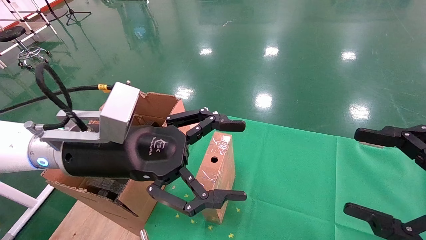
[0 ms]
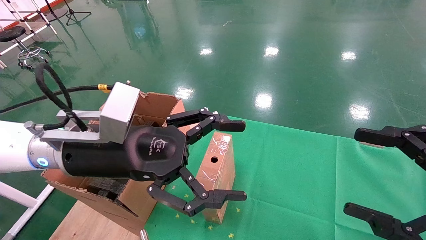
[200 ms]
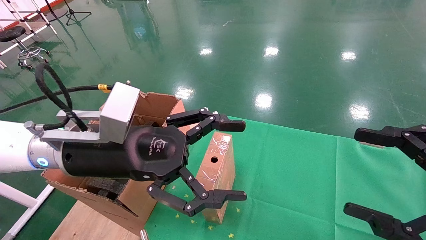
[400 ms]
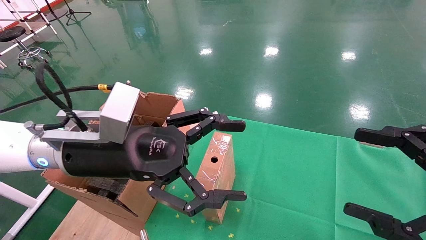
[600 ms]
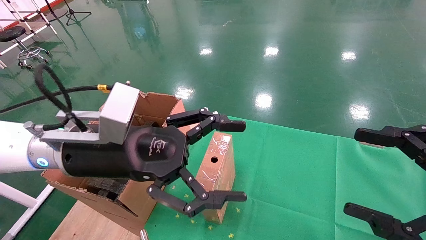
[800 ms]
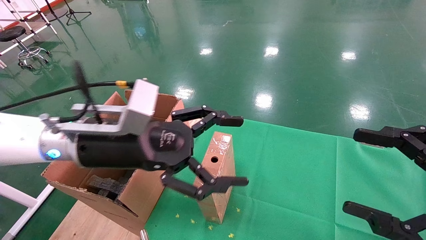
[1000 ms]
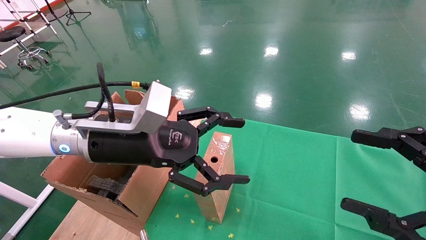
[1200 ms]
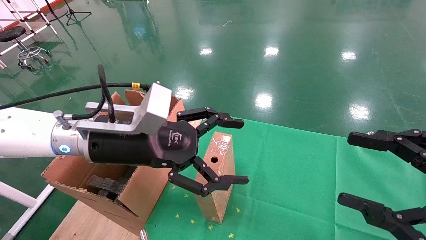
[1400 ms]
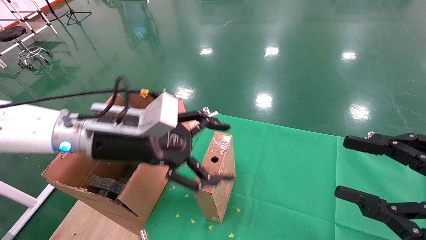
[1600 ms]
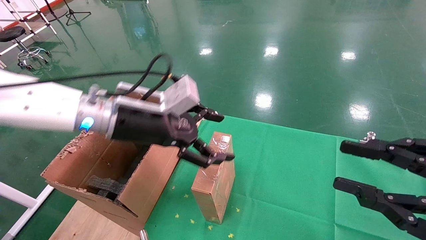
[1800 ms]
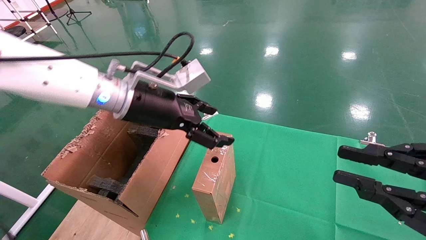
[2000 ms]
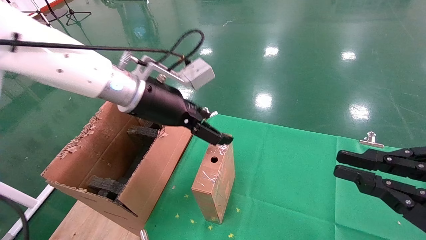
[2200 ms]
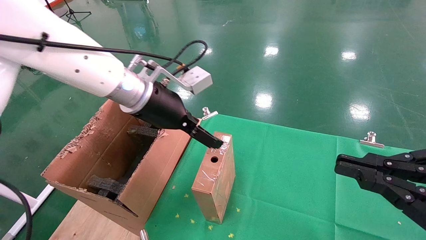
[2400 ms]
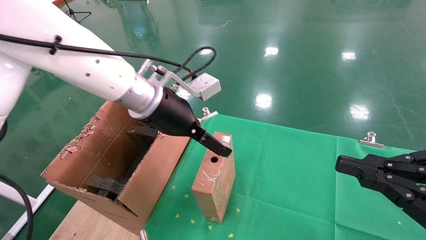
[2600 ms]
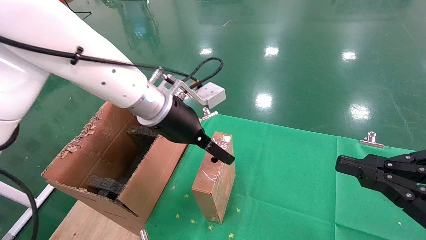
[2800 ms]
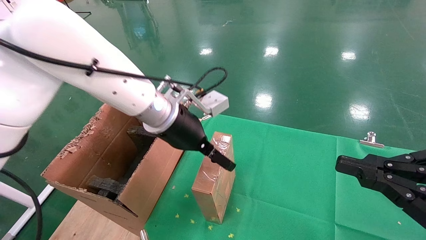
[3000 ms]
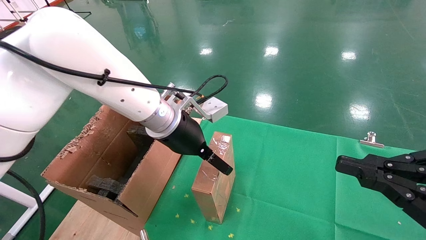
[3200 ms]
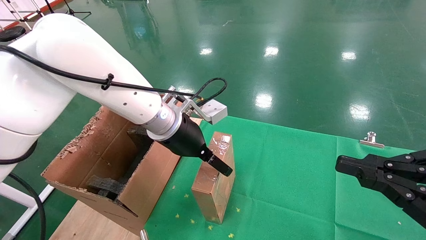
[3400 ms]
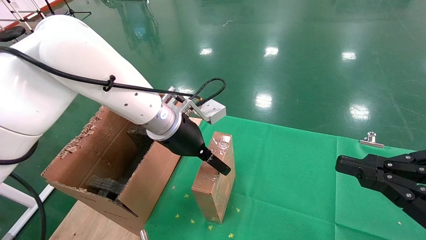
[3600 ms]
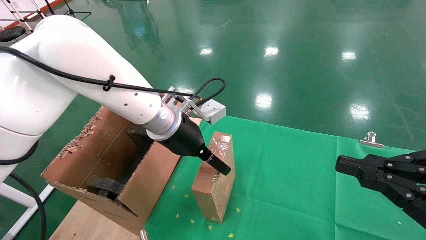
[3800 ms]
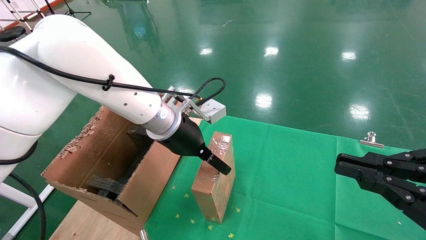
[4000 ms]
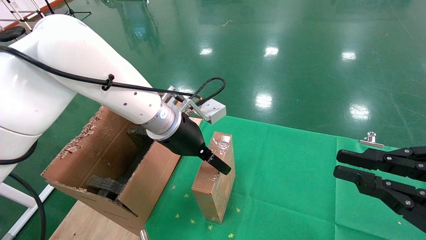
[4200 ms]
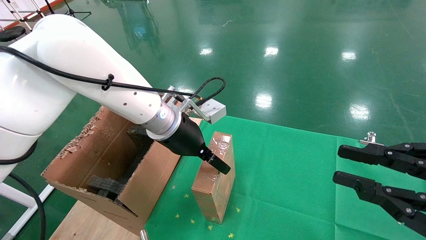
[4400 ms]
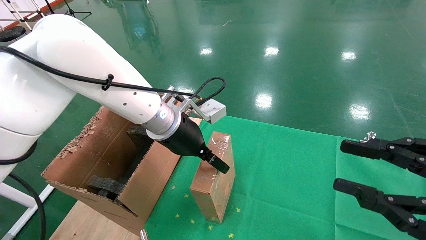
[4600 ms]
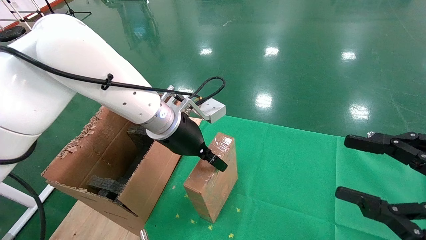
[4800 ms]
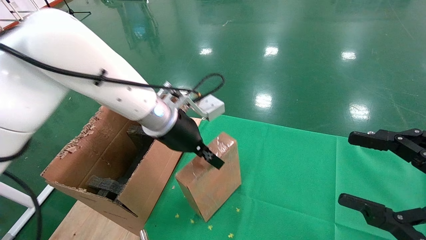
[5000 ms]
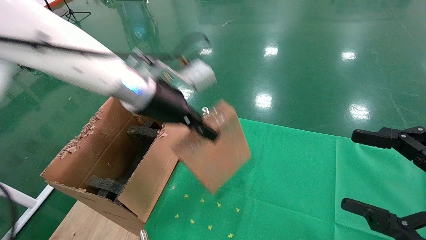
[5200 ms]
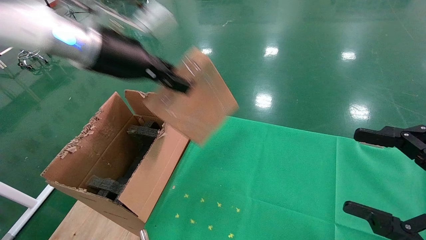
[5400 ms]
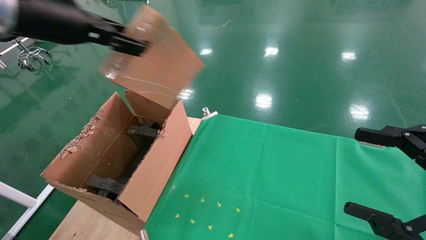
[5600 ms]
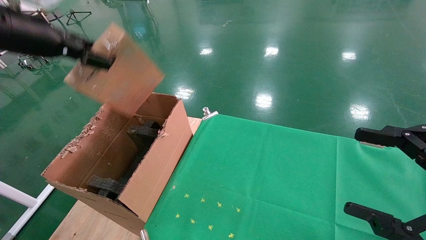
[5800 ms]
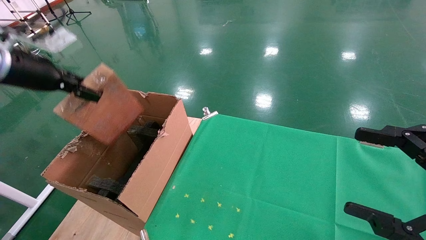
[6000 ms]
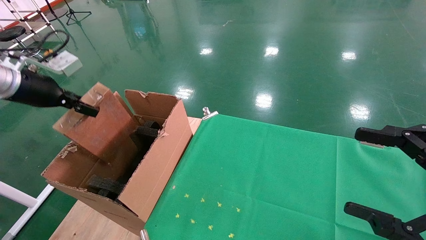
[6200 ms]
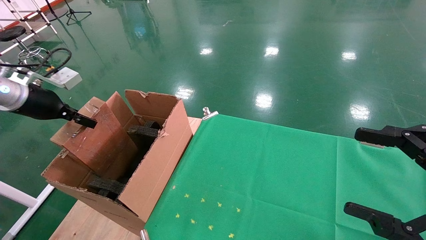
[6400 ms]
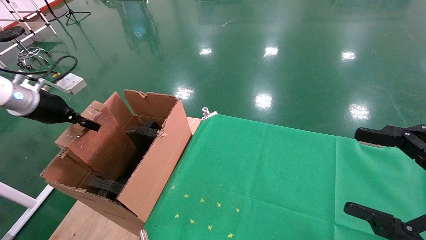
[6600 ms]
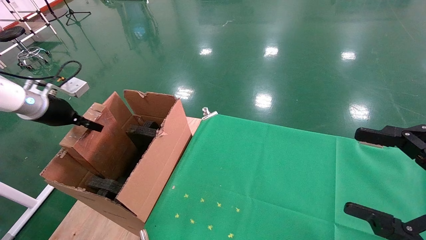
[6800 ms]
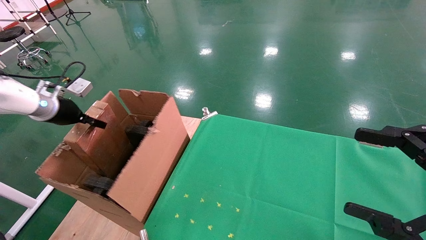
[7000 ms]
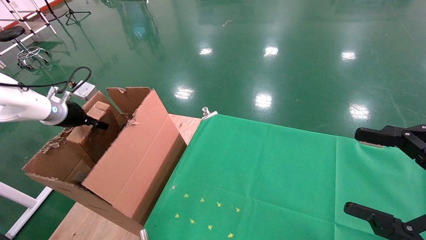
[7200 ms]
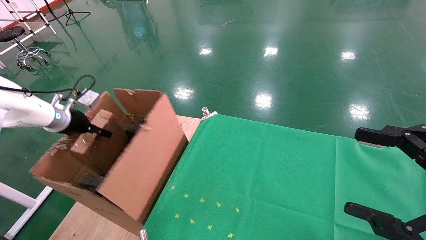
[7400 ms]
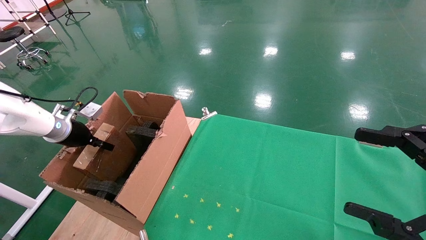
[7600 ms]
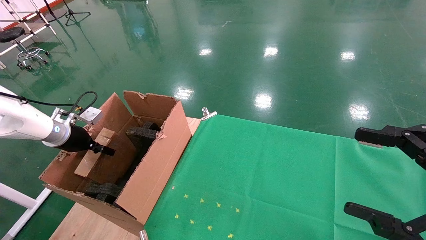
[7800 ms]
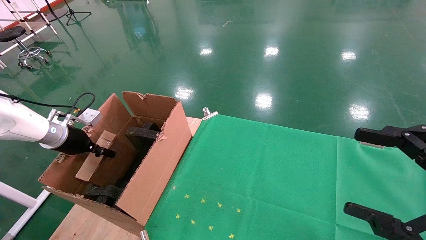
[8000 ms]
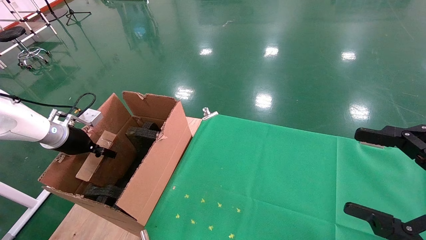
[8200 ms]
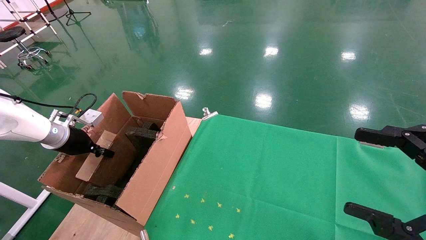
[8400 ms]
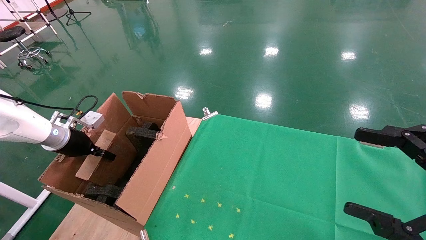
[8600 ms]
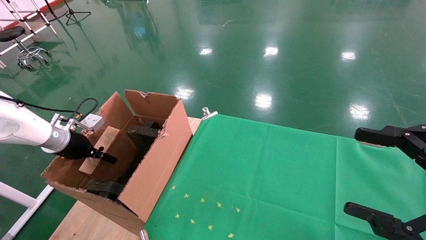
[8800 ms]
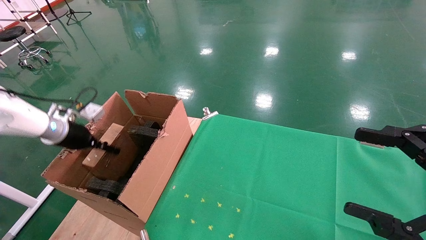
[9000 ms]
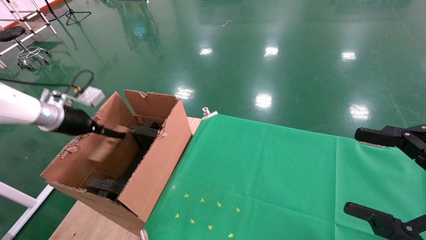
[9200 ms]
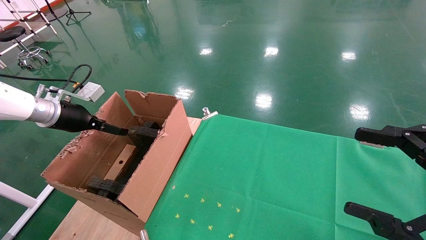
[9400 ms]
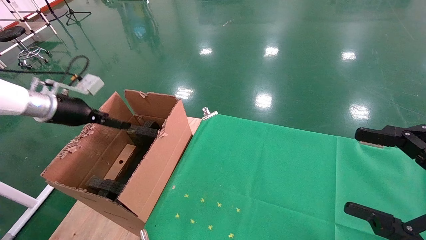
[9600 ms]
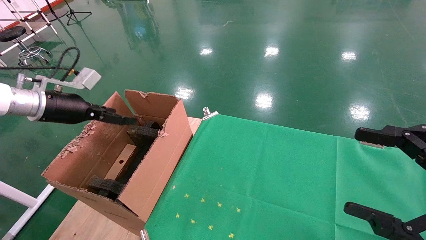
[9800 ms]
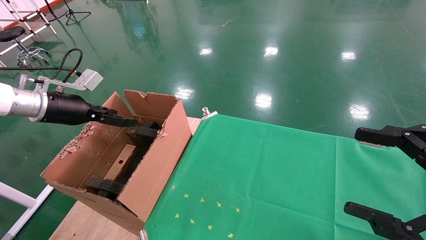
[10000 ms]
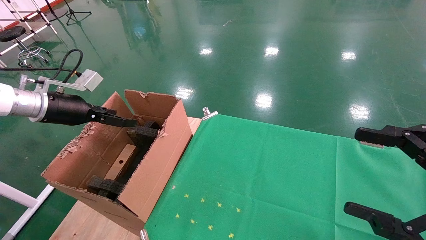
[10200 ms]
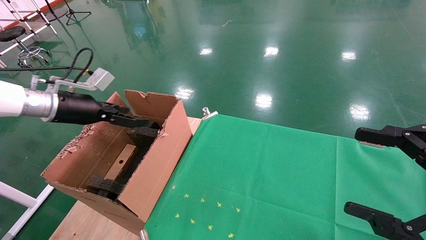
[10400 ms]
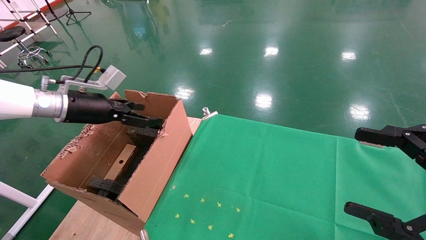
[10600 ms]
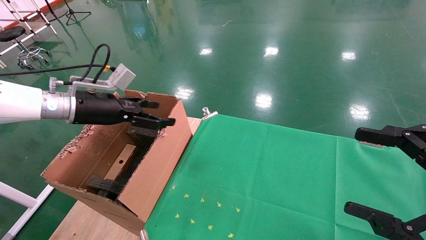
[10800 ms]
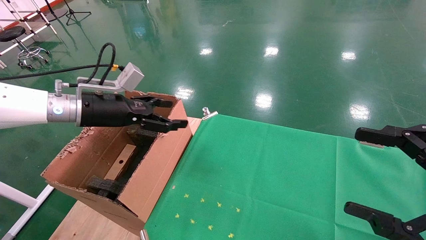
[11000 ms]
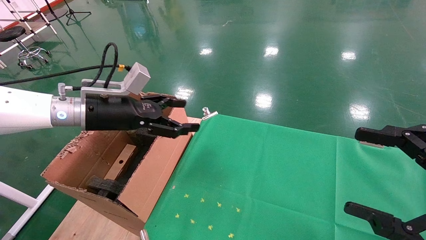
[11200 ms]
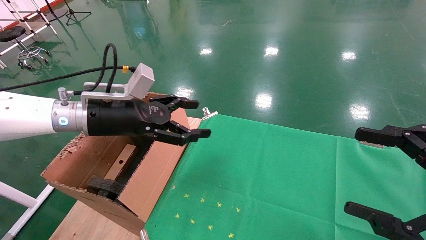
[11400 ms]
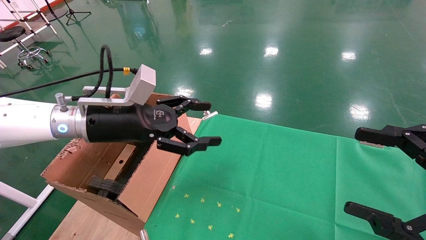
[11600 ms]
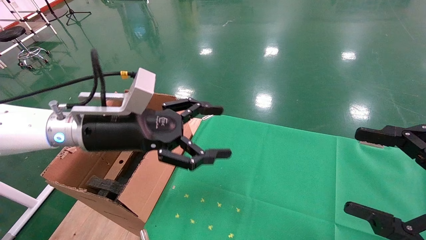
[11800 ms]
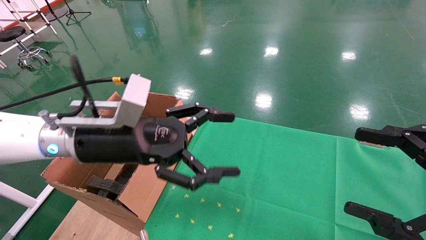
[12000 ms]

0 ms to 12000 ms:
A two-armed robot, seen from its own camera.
Task of the whole recording: using a robotic arm to pick up a cardboard box and palace it the carton.
Step, 1200 ms to 5000 ms: Pick up the mouse and the power cord paper box.
Step, 5200 ms to 8800 ms: Place the mouse and the power cord paper box into the container.
0 ms to 1600 ms: The left gripper heads forward, covering approximately 5 cm.
1600 ms to 3000 ms: The left gripper travels to the right and forward by roughly 10 cm; the right gripper closes.
3000 ms to 4400 ms: The grippers stay close to where they were, moving slightly.
4400 ms to 6000 ms: The left gripper heads to the left, covering some 30 cm, and closes. Meanwhile the right gripper opens up.
6000 ms to 7600 ms: The left gripper moves downward and forward, roughly 20 cm.
7600 ms to 9000 ms: The left gripper opens.
9000 ms to 10400 ms: The left gripper heads upward and to the right, covering approximately 10 cm, and opens.
10400 ms to 12000 ms: The left gripper goes approximately 20 cm to the right and backward.

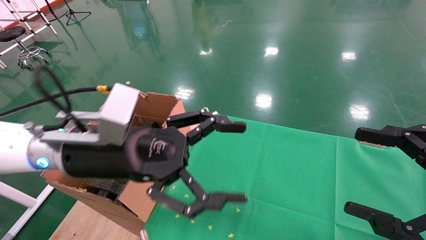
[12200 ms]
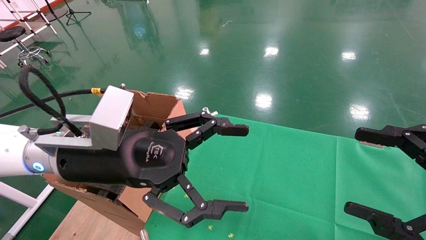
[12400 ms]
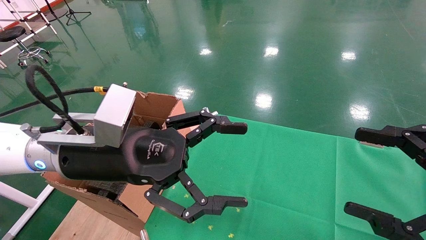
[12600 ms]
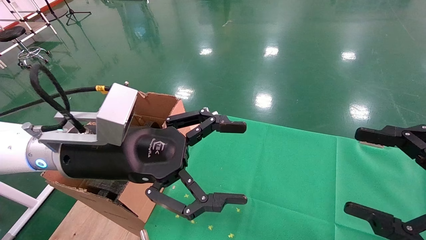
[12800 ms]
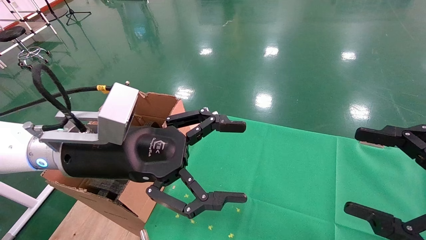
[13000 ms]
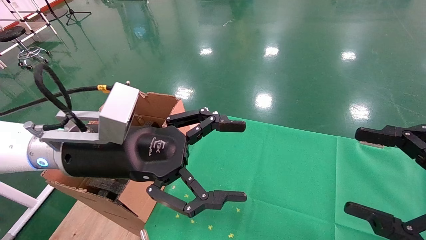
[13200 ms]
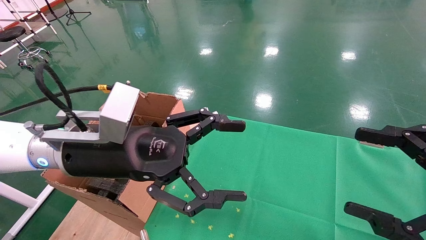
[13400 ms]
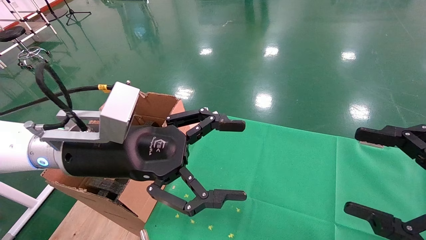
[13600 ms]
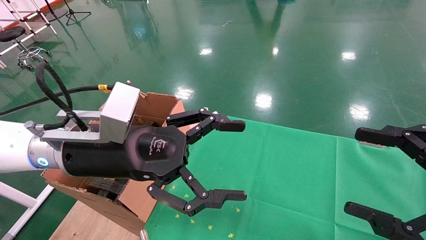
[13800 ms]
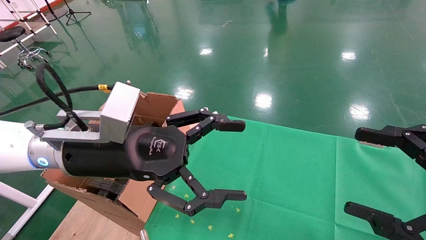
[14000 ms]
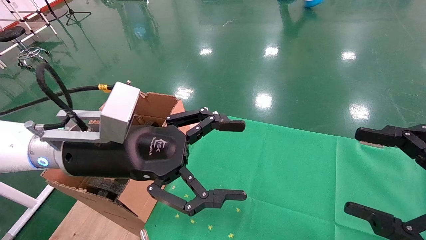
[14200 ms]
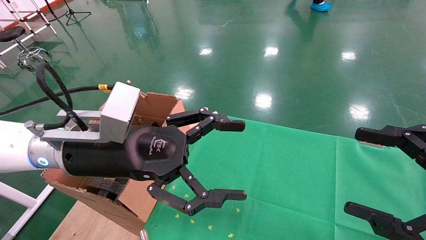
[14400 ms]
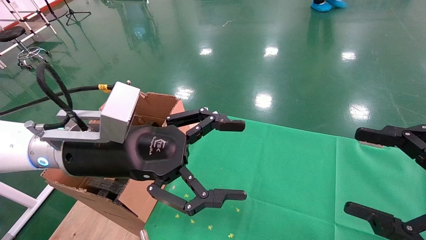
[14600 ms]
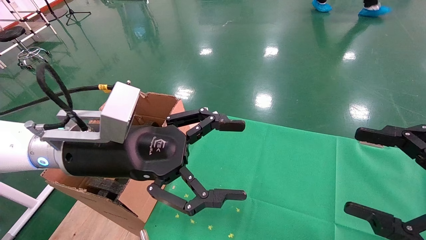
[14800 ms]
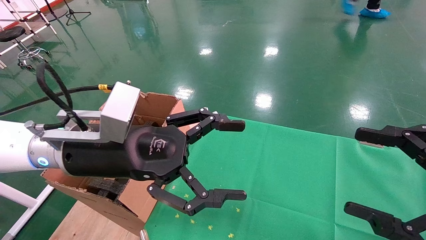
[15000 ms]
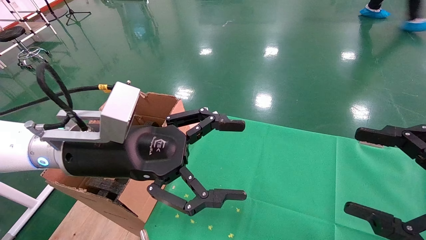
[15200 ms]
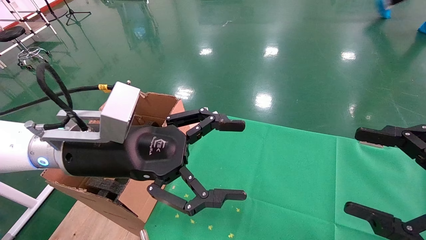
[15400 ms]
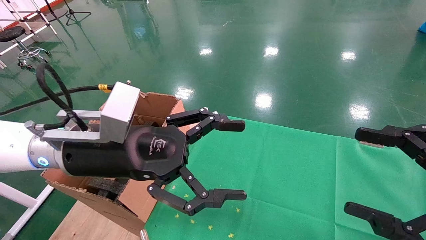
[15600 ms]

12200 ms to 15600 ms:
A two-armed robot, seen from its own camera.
Task of the whole recording: using a robotic arm to pick up a cardboard box and palace it the carton.
12200 ms to 15600 ms: Both grippers stay put.
